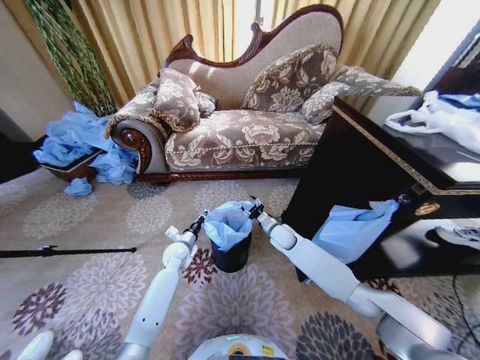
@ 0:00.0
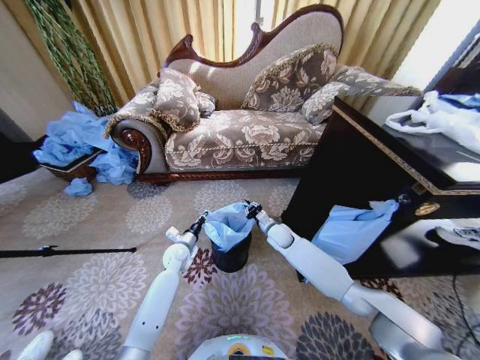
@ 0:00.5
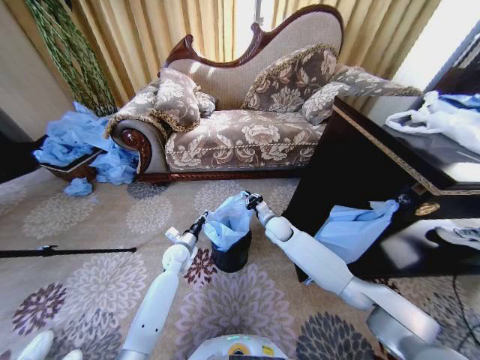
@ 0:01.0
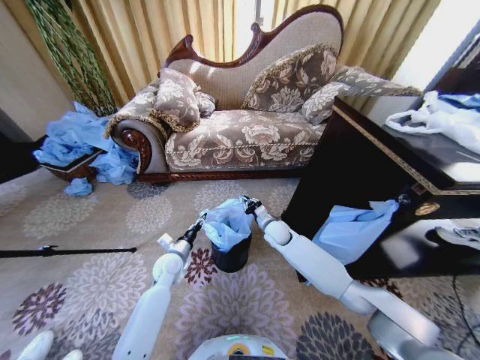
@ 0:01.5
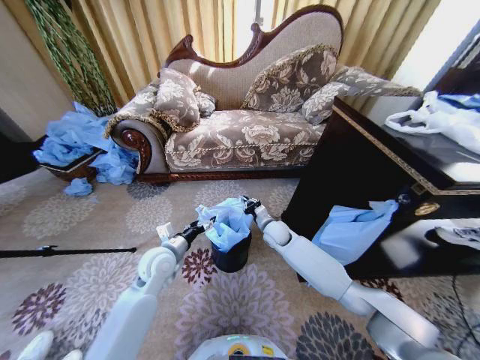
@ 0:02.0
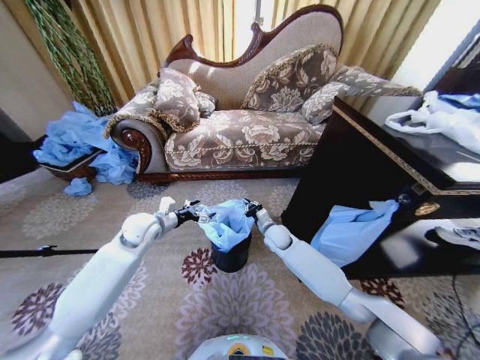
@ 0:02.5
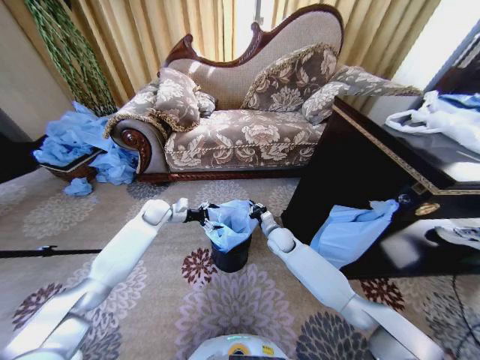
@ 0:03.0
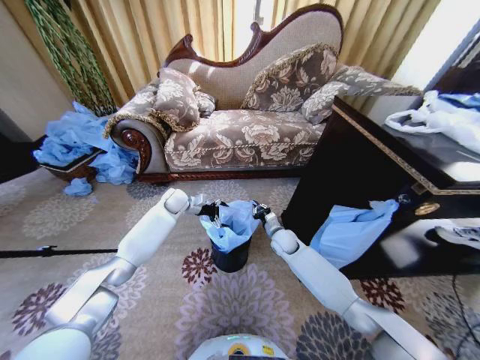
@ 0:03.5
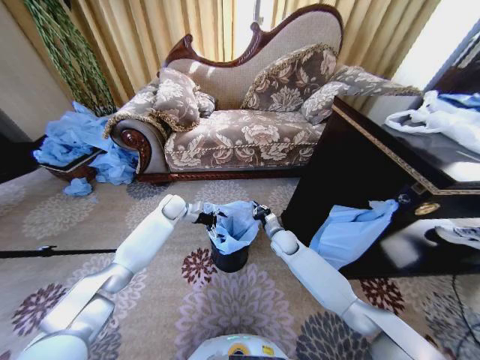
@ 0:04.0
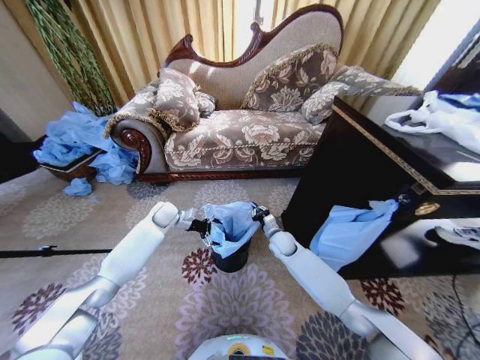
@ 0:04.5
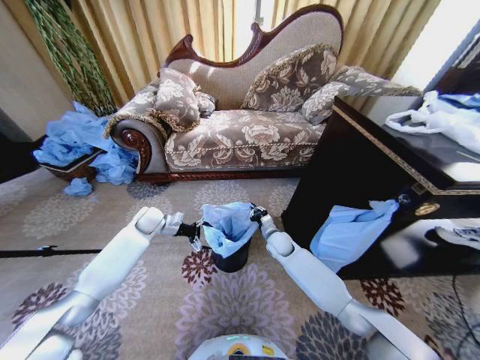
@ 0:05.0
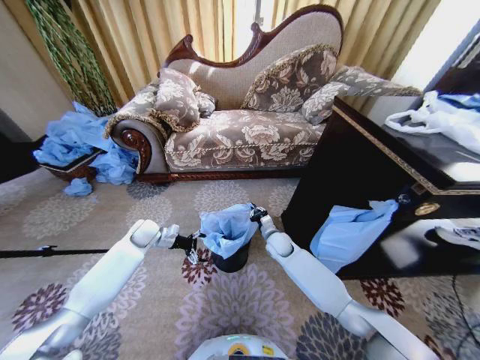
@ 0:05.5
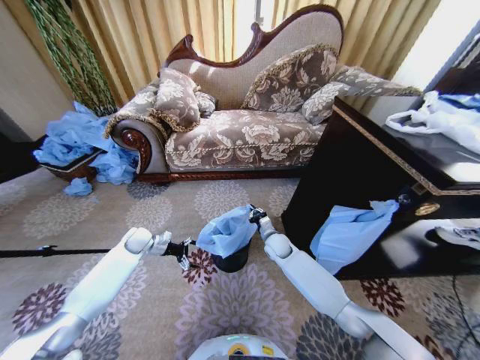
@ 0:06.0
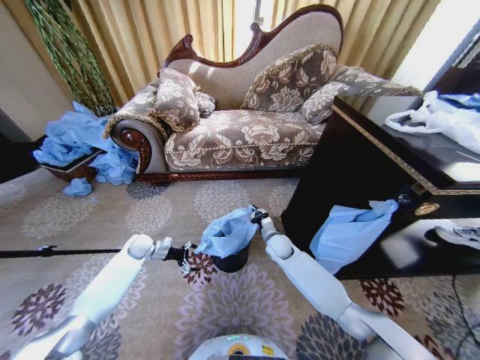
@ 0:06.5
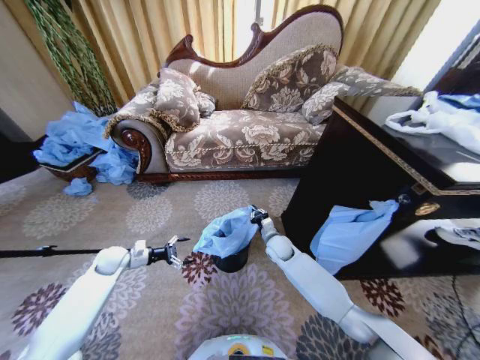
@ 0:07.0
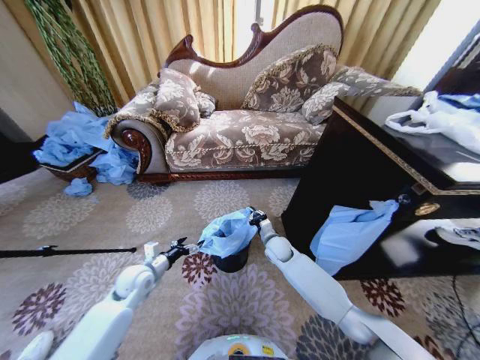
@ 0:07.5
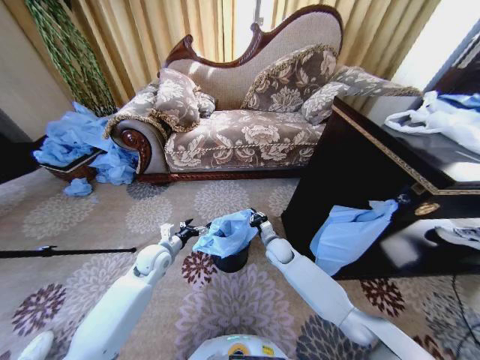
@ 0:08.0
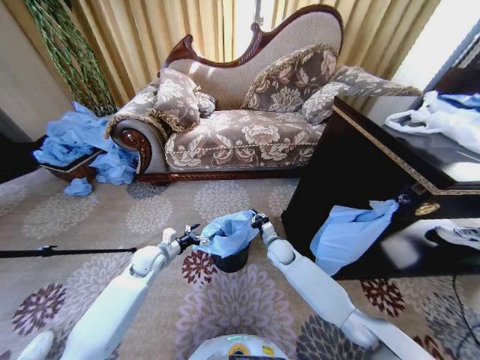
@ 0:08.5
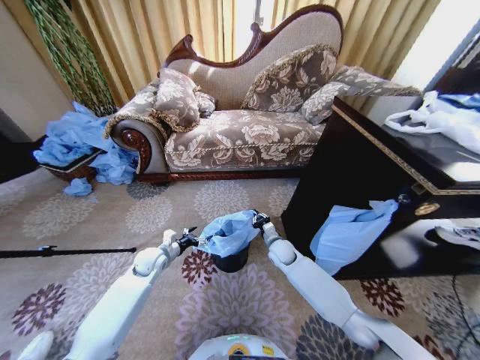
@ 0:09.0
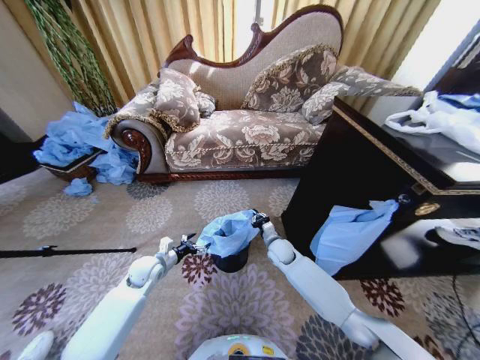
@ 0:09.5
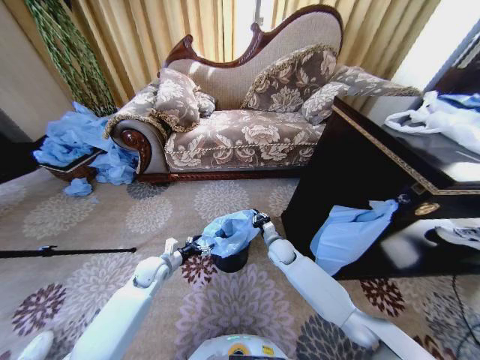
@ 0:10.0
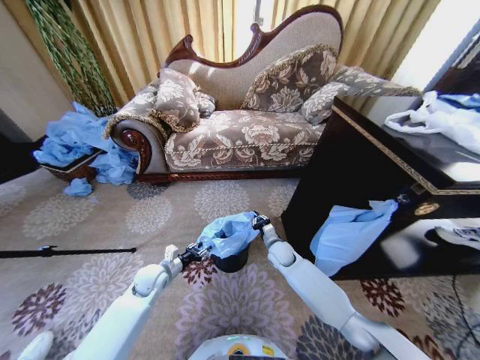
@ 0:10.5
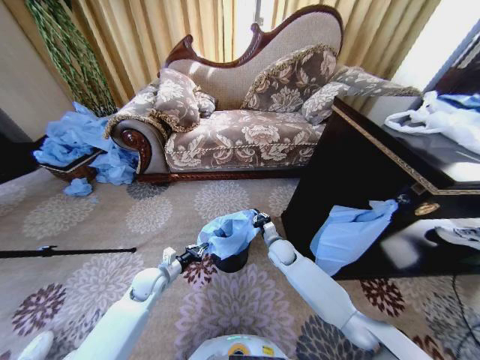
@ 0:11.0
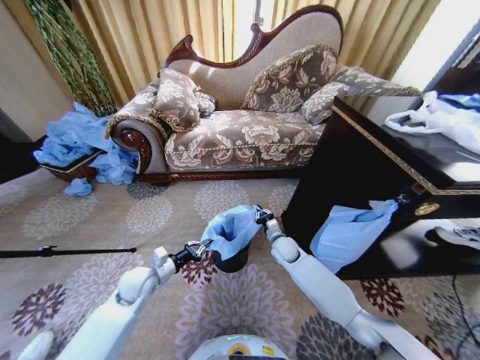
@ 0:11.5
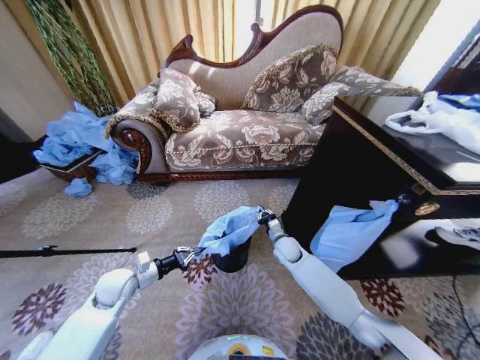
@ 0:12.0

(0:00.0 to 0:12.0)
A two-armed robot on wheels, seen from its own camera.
Task of the whole recording: Place a garbage bag over the trash bin.
0:00.0 - 0:02.0: The left gripper shifts about 15 cm upward and backward, and opens. The right gripper closes.
0:02.0 - 0:04.0: The right gripper moves roughly 5 cm. Meanwhile the left gripper travels forward by some 20 cm.
0:04.0 - 0:06.0: The left gripper is displaced to the left, backward and downward by some 15 cm.
0:06.0 - 0:08.0: The left gripper is displaced to the right and backward by roughly 15 cm.
0:08.0 - 0:10.0: The left gripper goes some 5 cm downward.
0:10.0 - 0:12.0: The left gripper is displaced backward and to the left by some 10 cm, and closes up.

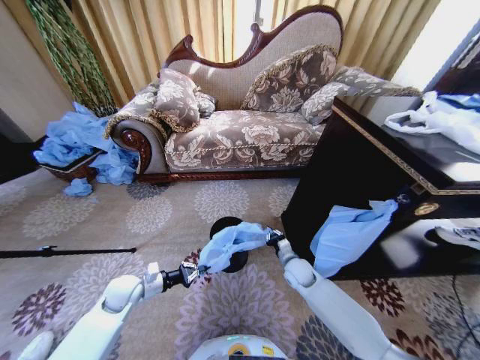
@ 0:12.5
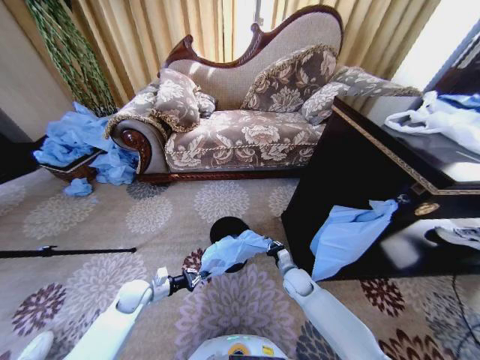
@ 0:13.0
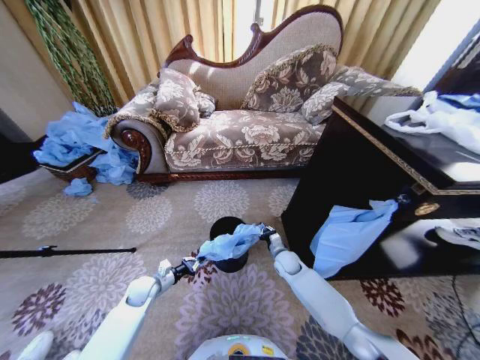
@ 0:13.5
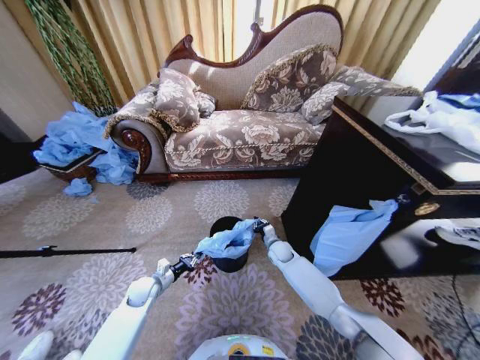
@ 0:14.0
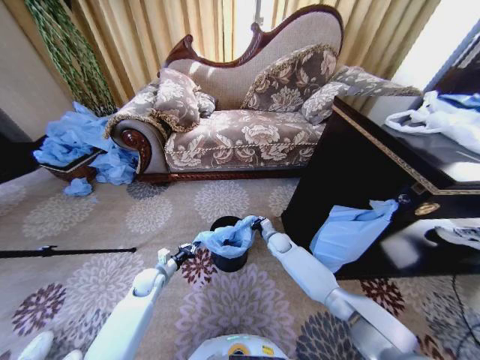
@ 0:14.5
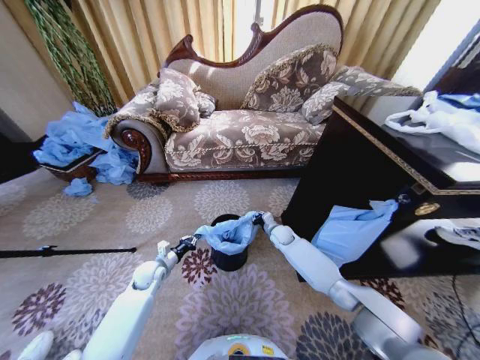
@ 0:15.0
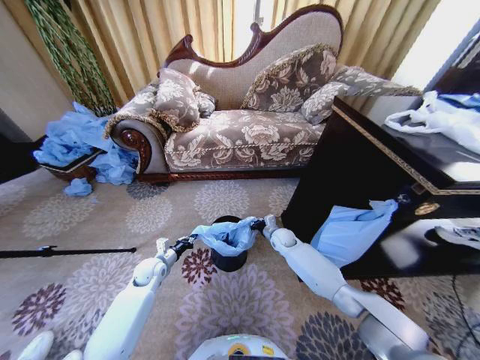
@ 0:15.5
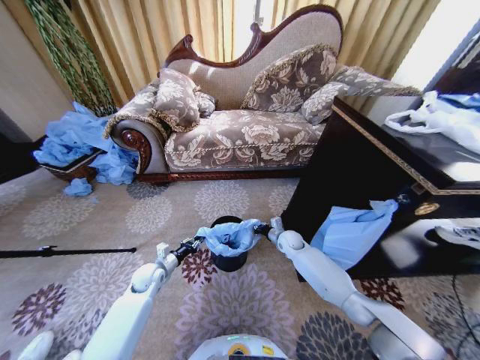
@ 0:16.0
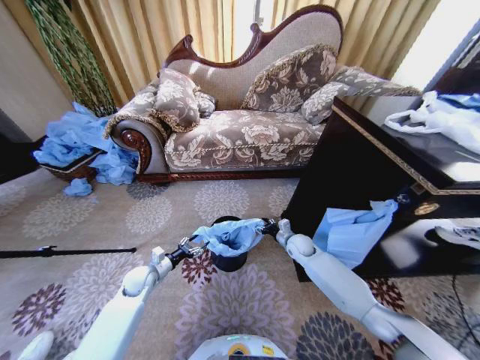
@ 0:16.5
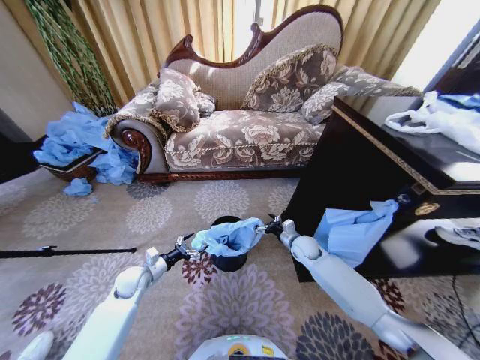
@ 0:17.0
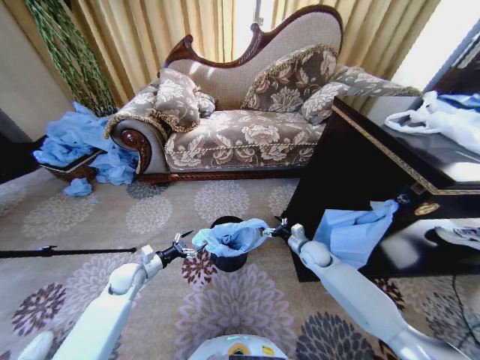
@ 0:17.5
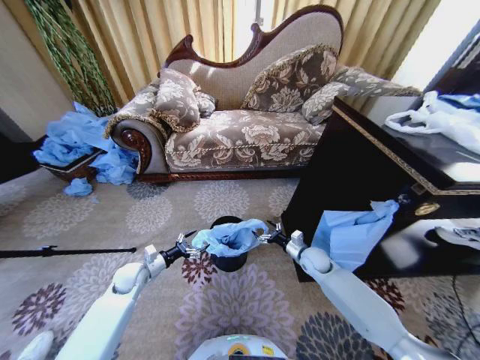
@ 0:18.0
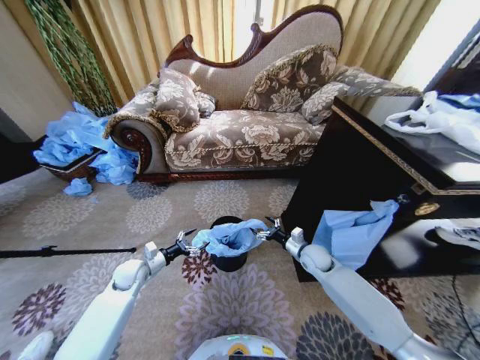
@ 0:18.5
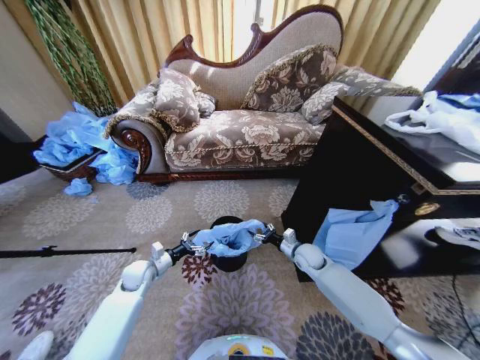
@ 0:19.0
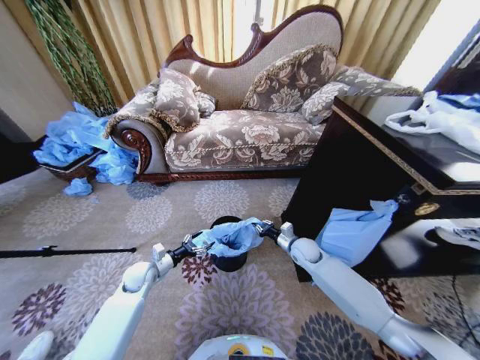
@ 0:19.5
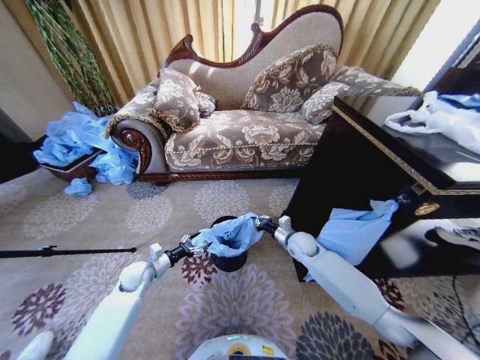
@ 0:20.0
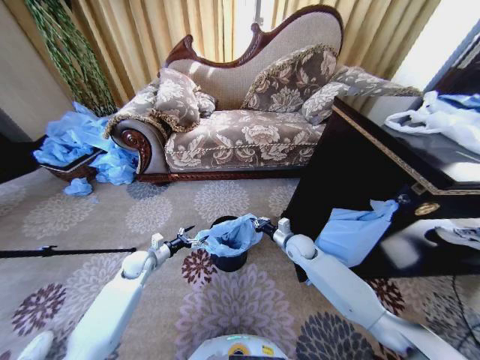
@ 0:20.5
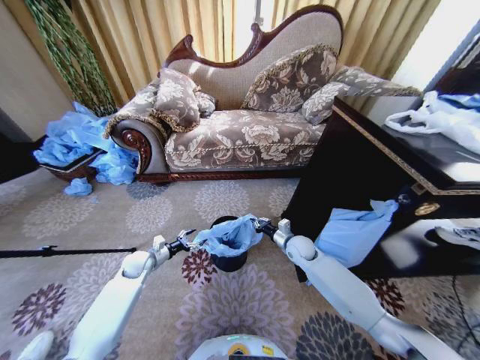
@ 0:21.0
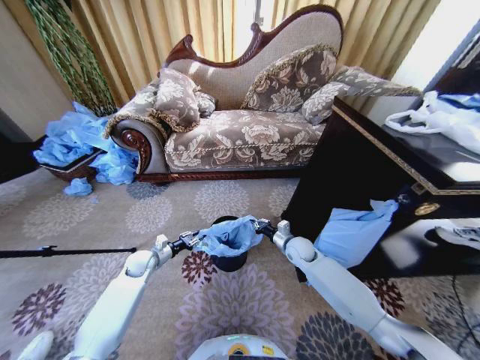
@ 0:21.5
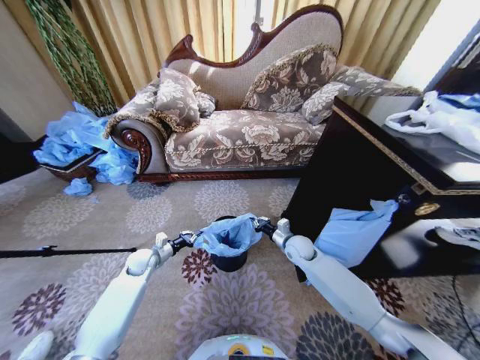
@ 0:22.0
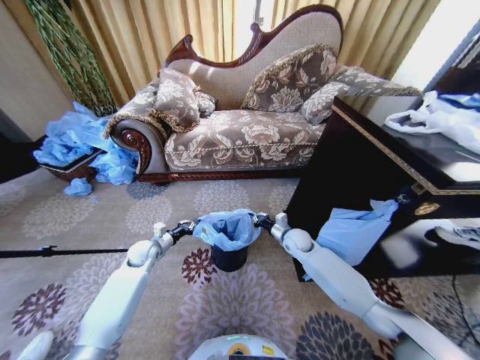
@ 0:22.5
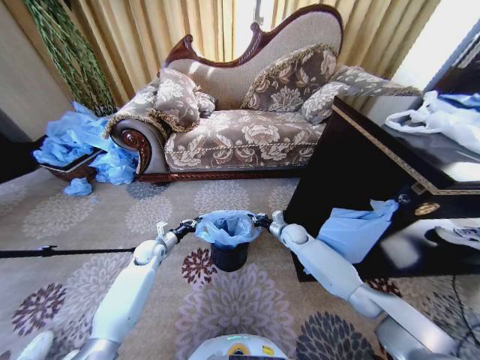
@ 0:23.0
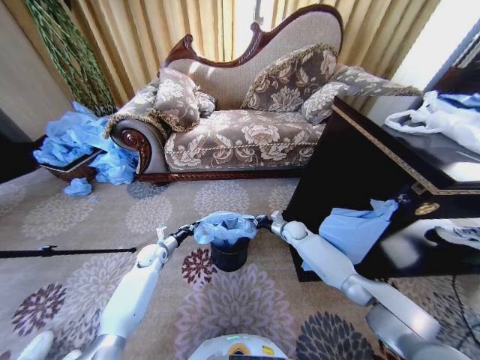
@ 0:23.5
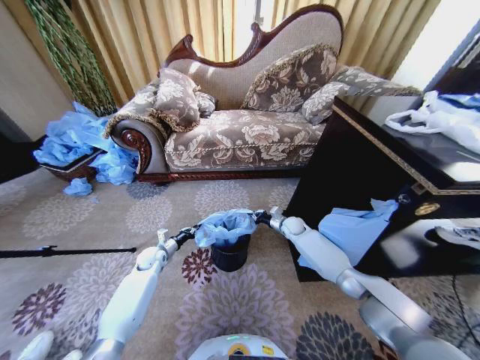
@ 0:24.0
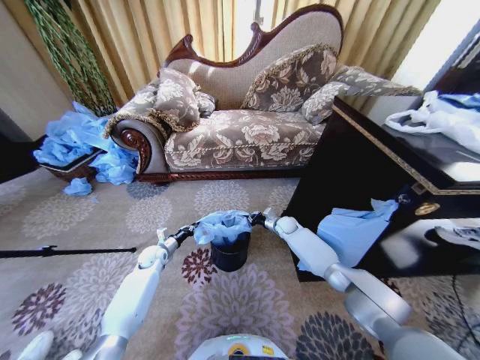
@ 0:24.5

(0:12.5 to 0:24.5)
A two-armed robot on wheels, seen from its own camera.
Task of the whole recording: Place a garbage bag over the trash bin.
0:12.5 - 0:14.5: The right gripper is displaced forward by roughly 10 cm, while the left gripper shifts some 10 cm downward and forward.
0:14.5 - 0:16.5: The right gripper goes roughly 5 cm to the right, and opens. Meanwhile the left gripper opens its fingers.
0:16.5 - 0:18.5: The right gripper is displaced backward by approximately 5 cm, and opens up.
0:18.5 - 0:20.5: The right gripper moves roughly 5 cm, and closes its fingers.
0:20.5 - 0:22.5: The left gripper closes up.
0:22.5 - 0:24.5: The right gripper moves forward, about 10 cm, while the left gripper shifts some 5 cm downward.

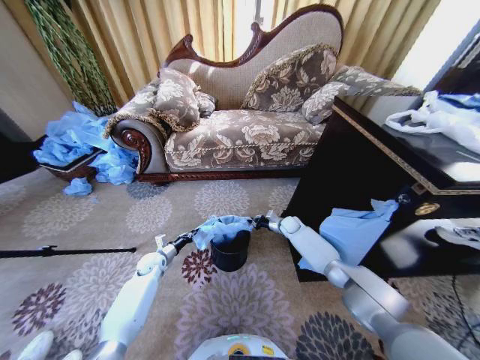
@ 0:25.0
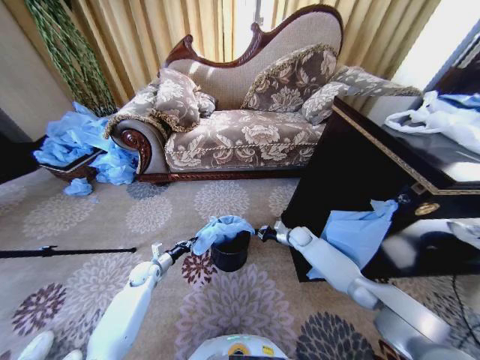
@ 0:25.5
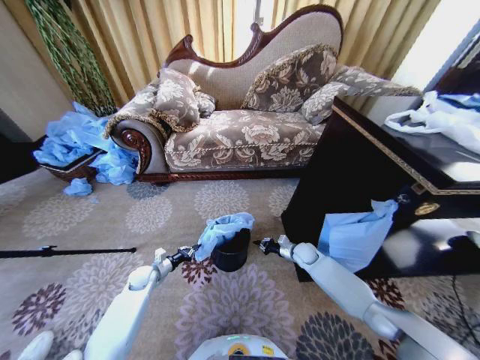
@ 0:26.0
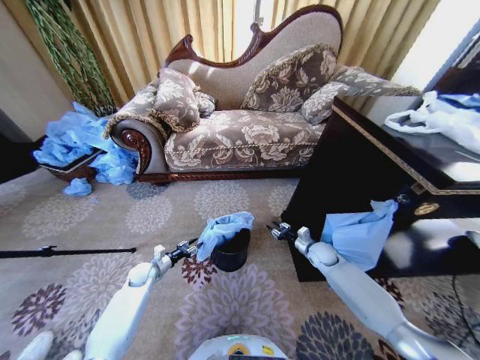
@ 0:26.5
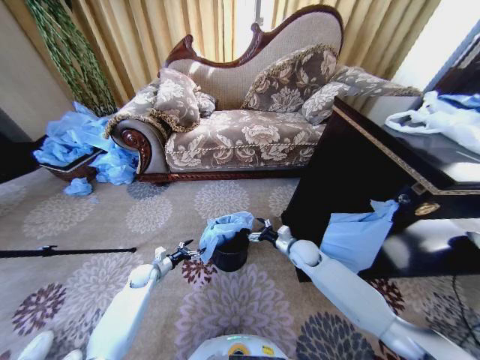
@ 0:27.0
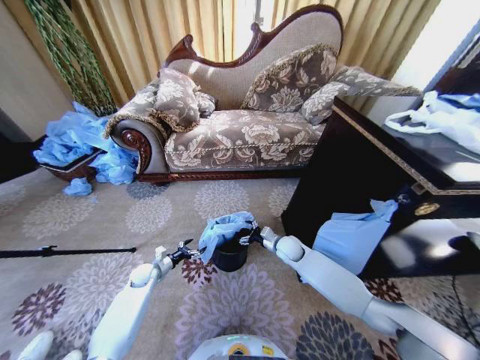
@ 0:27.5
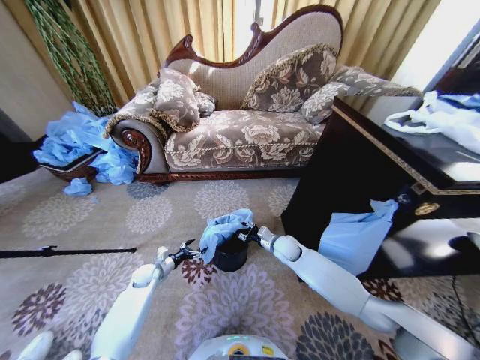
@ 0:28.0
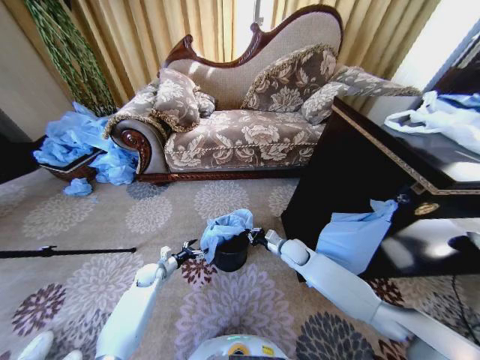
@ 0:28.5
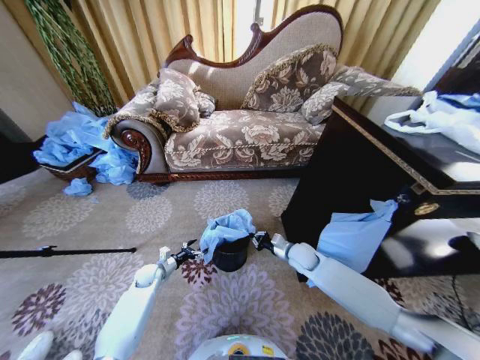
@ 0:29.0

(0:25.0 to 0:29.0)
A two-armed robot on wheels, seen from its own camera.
Task of the whole recording: Place a garbage bag over the trash bin.
0:25.0 - 0:27.0: The left gripper opens up. Meanwhile the right gripper goes about 15 cm backward, and opens its fingers.
0:27.0 - 0:29.0: The right gripper closes.
